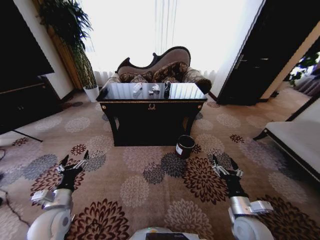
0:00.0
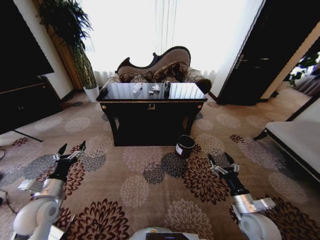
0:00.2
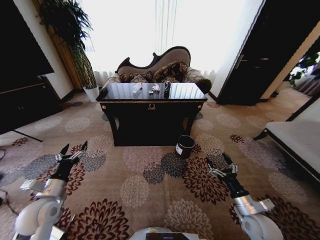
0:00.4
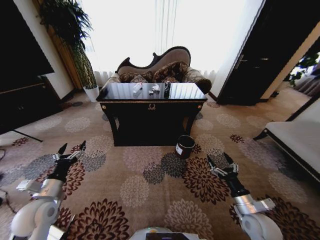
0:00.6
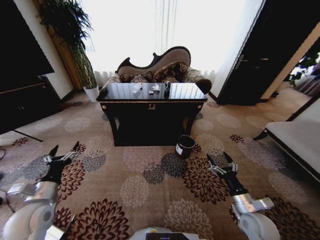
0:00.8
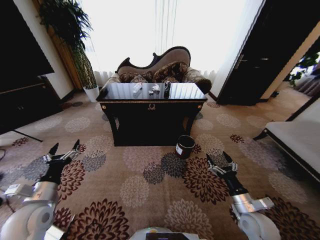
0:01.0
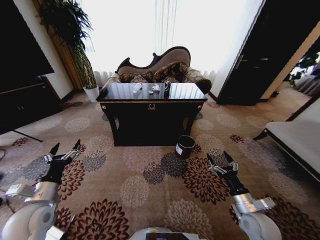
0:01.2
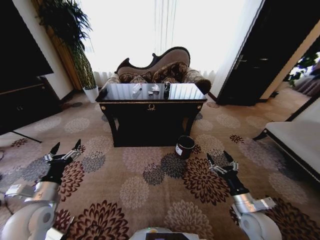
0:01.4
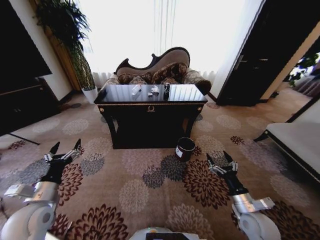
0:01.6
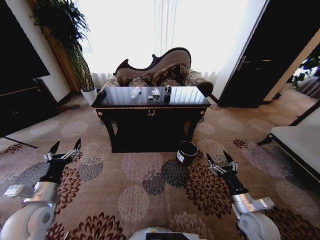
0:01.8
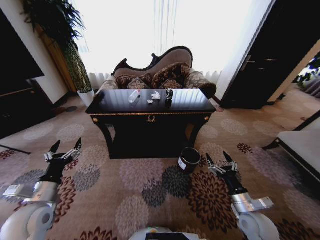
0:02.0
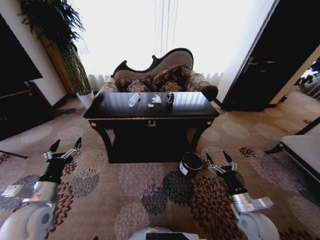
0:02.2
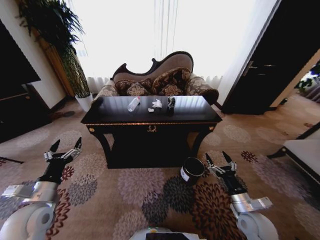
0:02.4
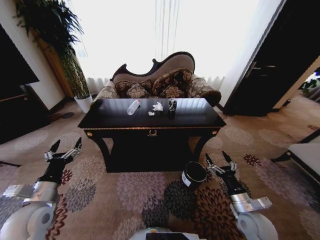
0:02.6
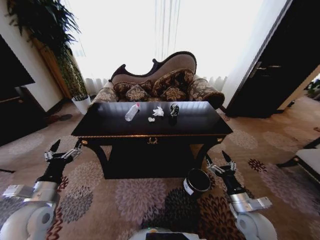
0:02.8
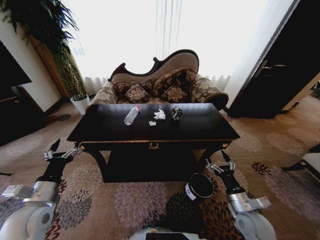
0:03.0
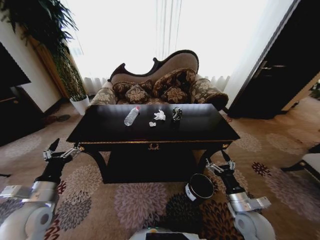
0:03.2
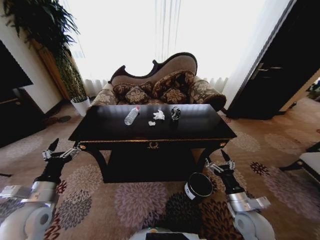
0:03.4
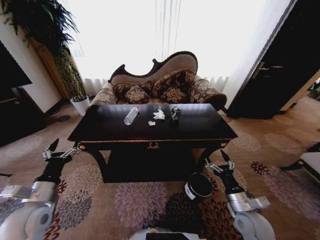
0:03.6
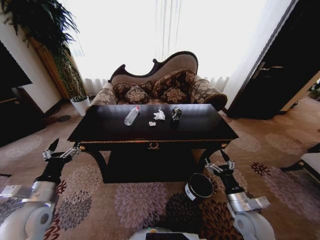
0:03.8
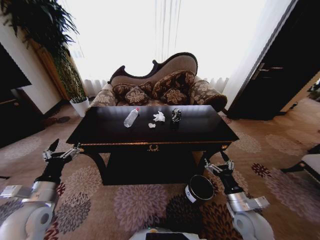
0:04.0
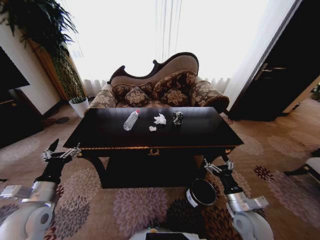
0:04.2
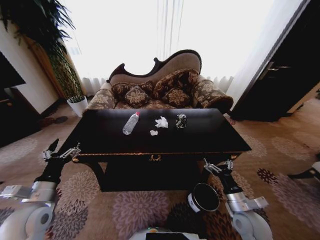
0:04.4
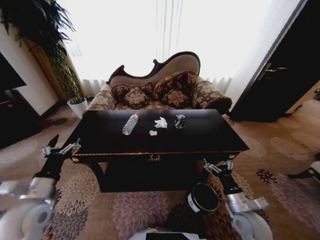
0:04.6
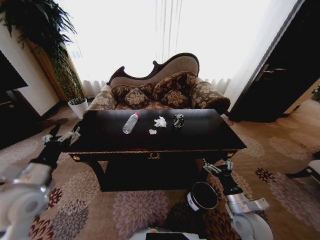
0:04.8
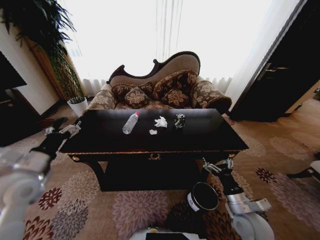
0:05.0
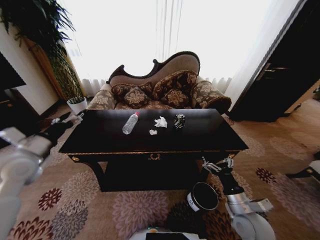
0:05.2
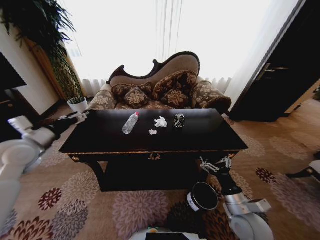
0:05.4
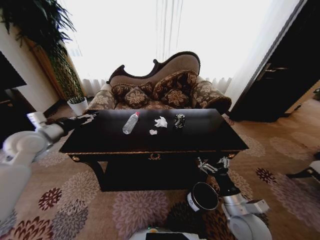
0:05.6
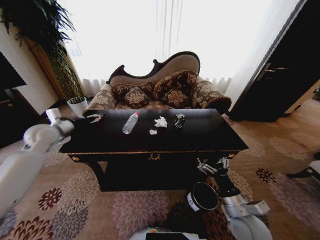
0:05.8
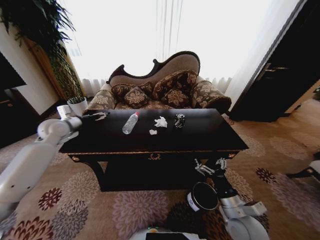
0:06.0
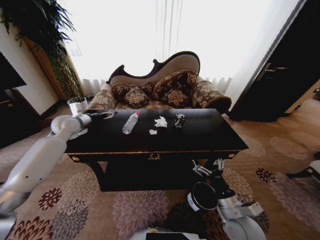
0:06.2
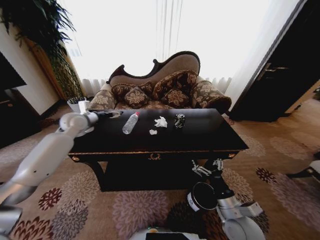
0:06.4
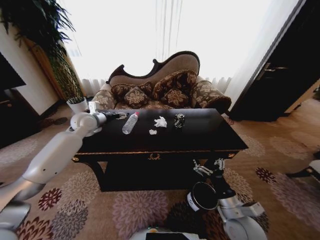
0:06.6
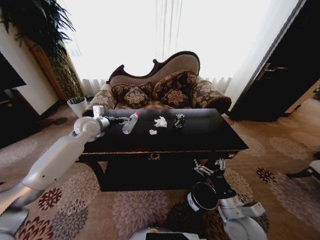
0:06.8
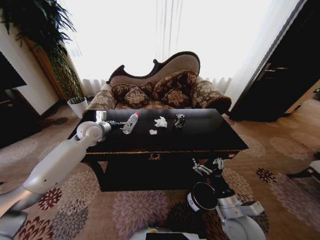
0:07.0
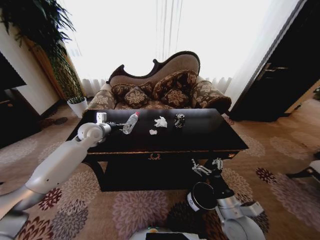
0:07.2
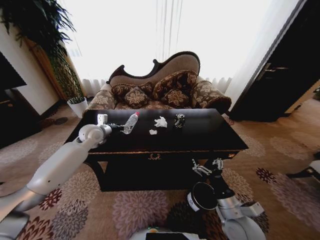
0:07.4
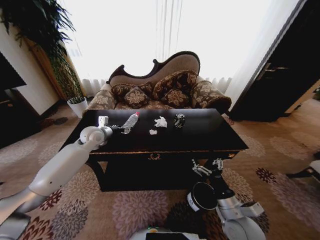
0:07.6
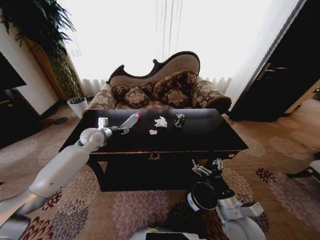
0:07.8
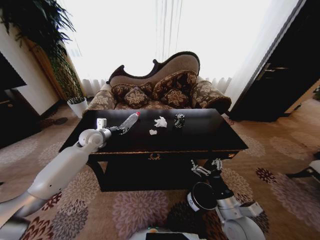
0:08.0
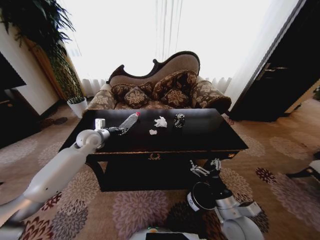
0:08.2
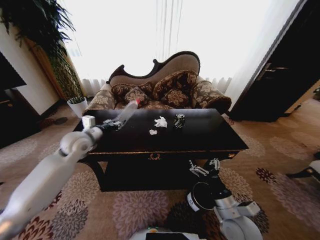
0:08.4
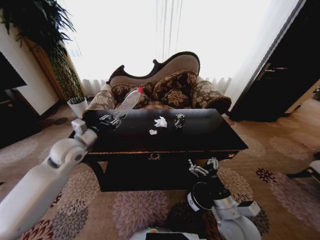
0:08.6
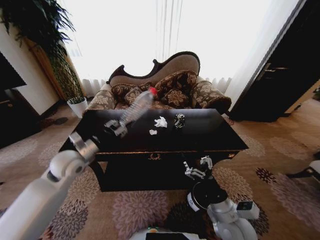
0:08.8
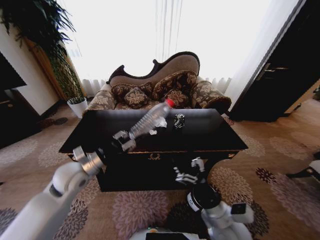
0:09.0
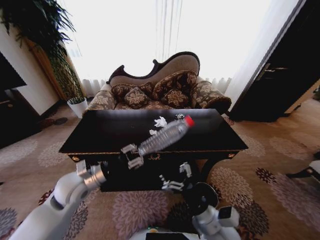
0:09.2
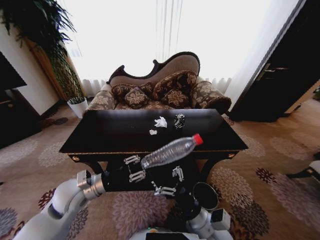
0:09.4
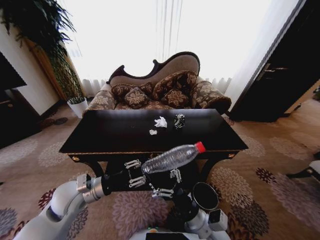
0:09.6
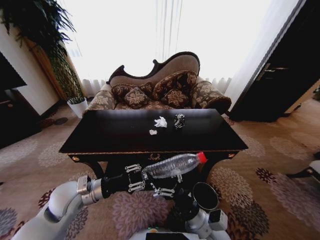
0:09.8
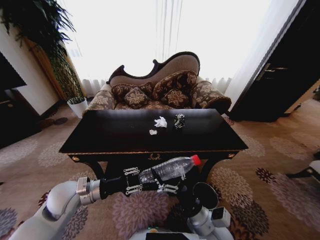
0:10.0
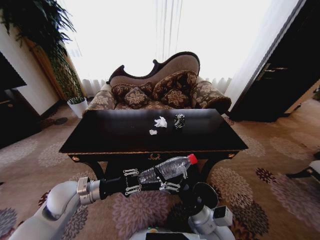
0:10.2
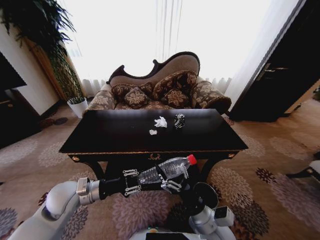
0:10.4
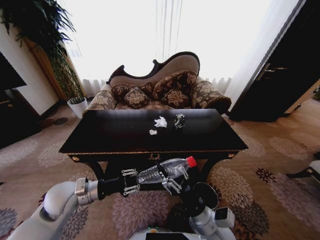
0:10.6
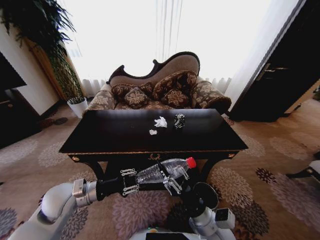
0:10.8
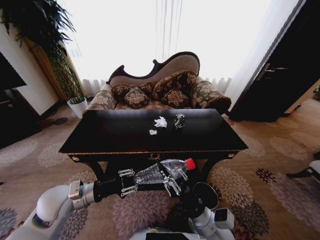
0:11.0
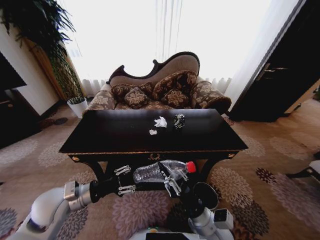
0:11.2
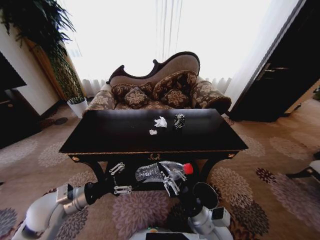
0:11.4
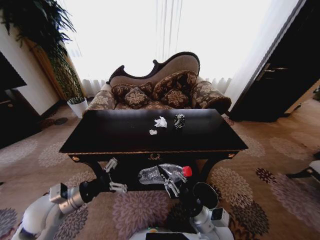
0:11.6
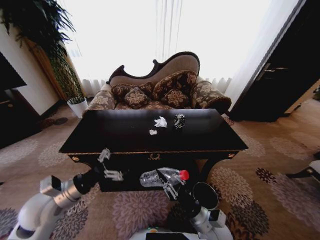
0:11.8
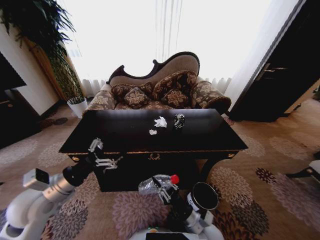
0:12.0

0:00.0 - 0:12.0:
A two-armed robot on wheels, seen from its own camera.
Task of the whole recording: Move to the front of the table and place the trash on the table into the trash bin.
0:04.4 - 0:06.0: The left gripper travels forward and upward by approximately 30 cm. The right gripper changes place by about 5 cm.
0:06.0 - 0:07.6: The left gripper travels to the right and downward by about 15 cm.
0:07.6 - 0:09.0: The left gripper travels backward by some 20 cm, and closes. The right gripper travels to the left by about 5 cm.
0:09.0 - 0:10.4: The left gripper changes place by roughly 5 cm.
0:10.4 - 0:12.0: The right gripper travels downward by about 10 cm, and closes its fingers. Meanwhile the left gripper shifts by approximately 5 cm, and opens.

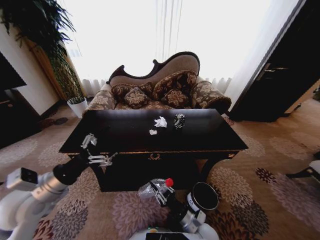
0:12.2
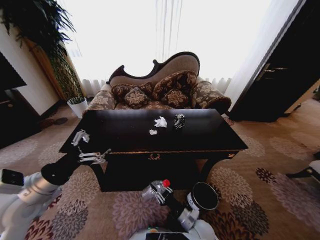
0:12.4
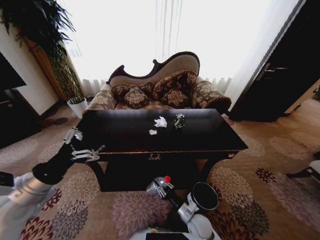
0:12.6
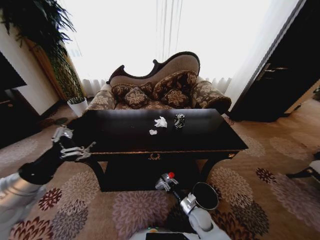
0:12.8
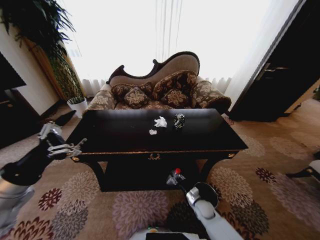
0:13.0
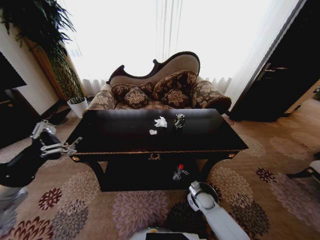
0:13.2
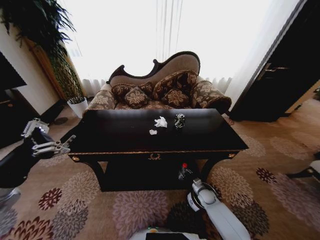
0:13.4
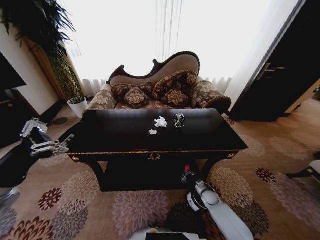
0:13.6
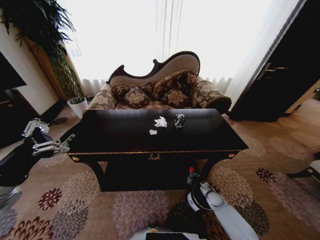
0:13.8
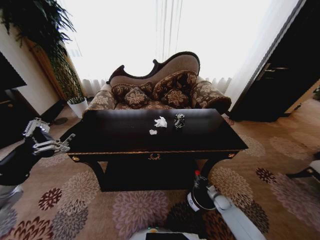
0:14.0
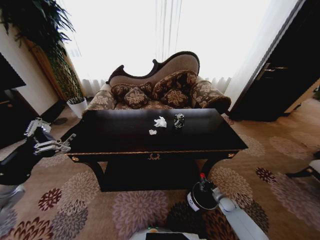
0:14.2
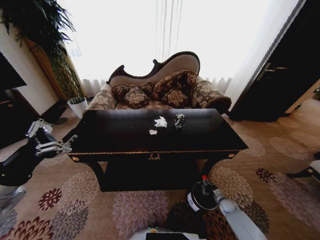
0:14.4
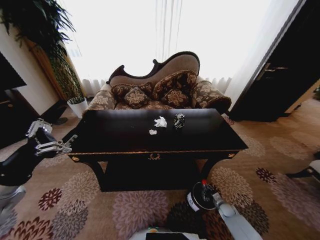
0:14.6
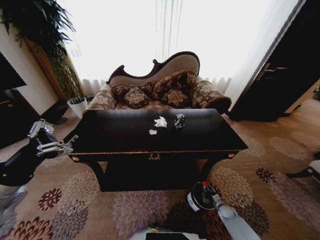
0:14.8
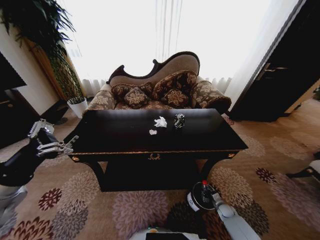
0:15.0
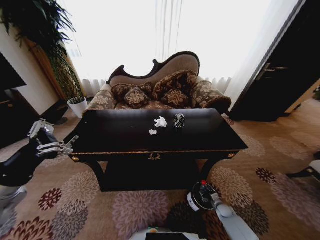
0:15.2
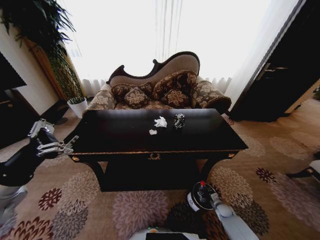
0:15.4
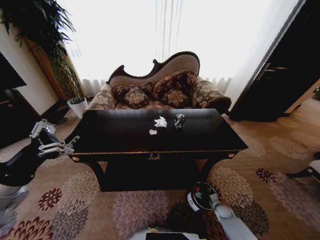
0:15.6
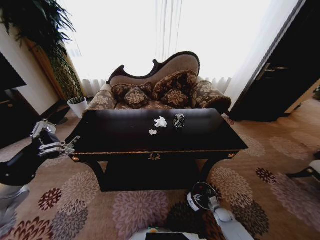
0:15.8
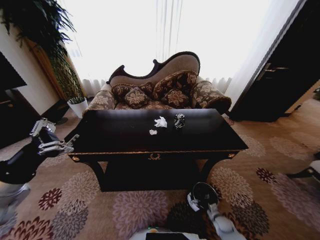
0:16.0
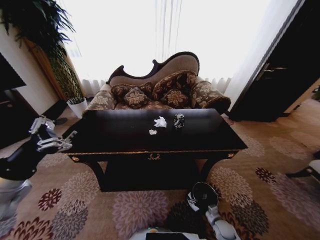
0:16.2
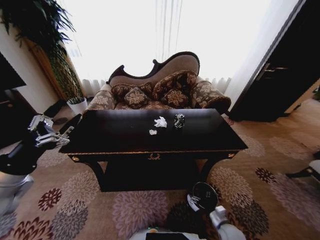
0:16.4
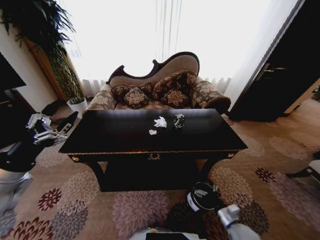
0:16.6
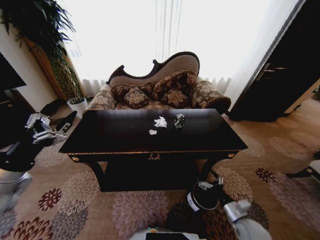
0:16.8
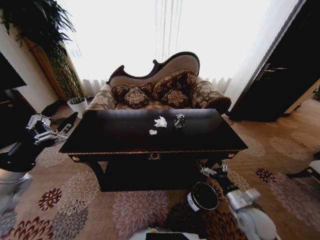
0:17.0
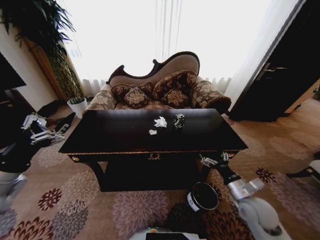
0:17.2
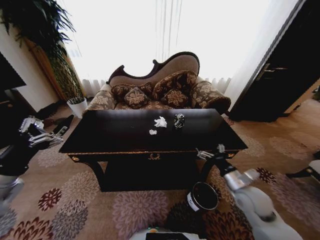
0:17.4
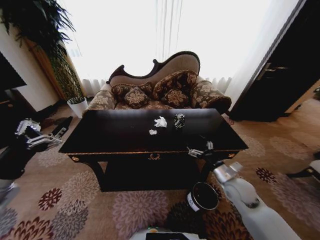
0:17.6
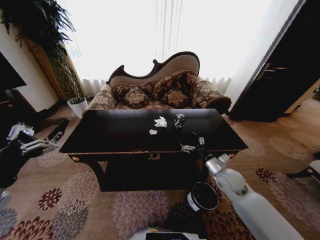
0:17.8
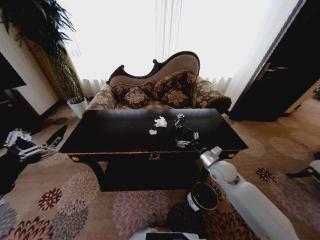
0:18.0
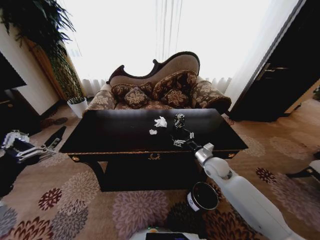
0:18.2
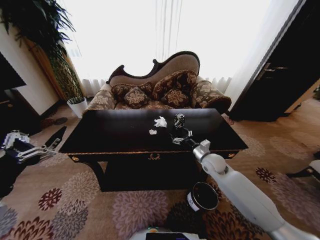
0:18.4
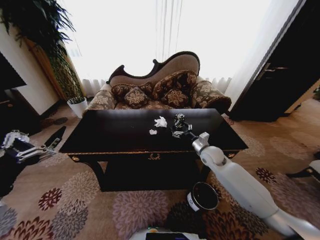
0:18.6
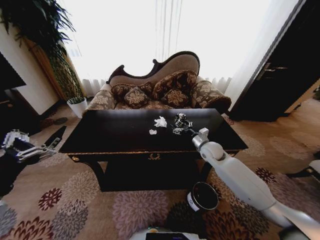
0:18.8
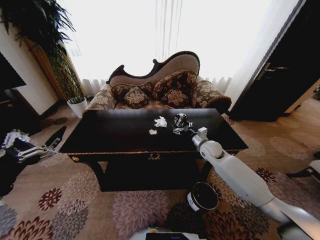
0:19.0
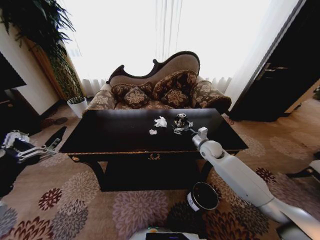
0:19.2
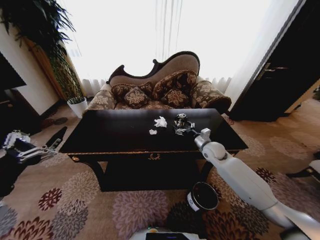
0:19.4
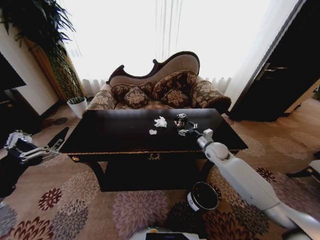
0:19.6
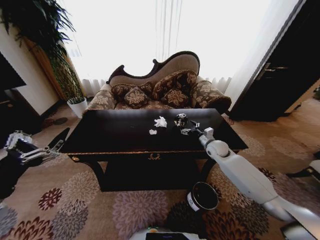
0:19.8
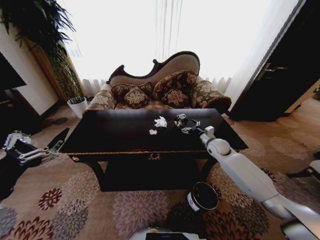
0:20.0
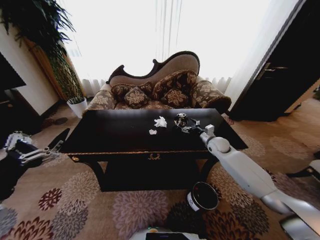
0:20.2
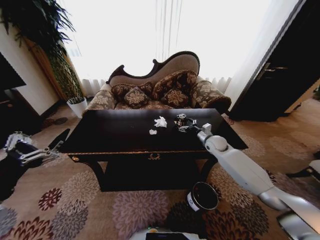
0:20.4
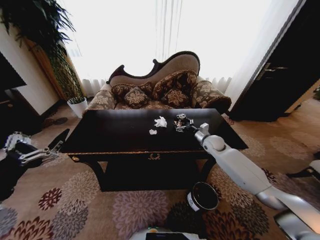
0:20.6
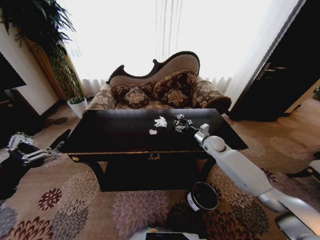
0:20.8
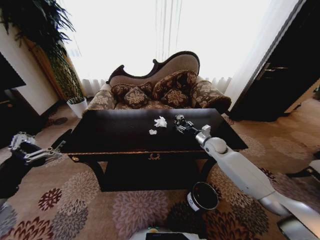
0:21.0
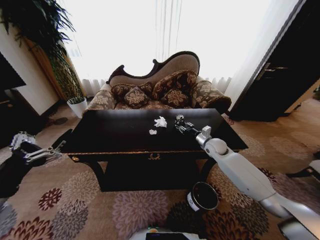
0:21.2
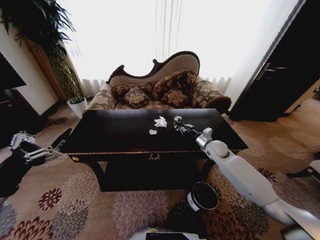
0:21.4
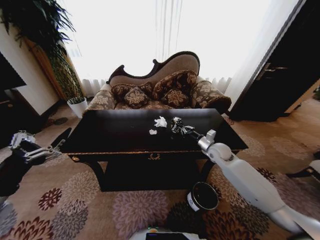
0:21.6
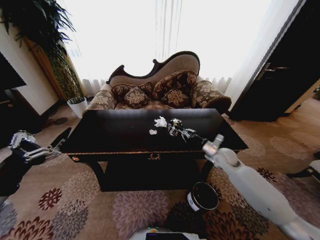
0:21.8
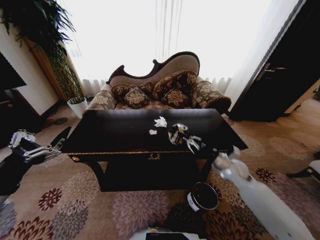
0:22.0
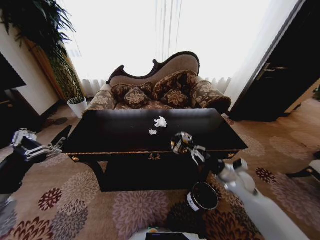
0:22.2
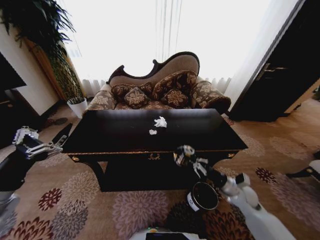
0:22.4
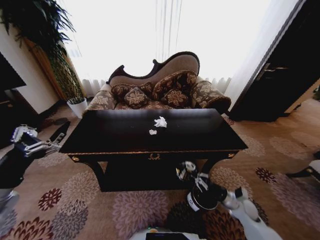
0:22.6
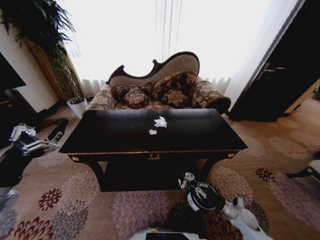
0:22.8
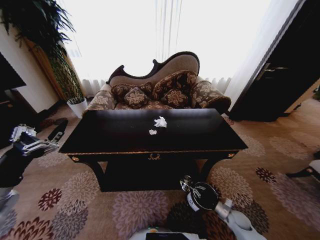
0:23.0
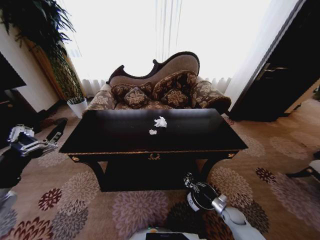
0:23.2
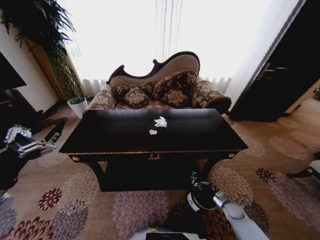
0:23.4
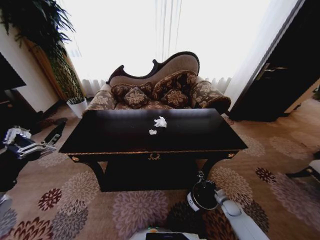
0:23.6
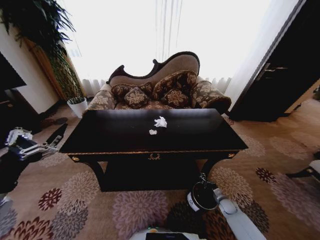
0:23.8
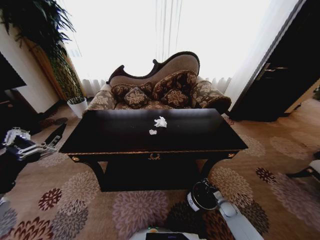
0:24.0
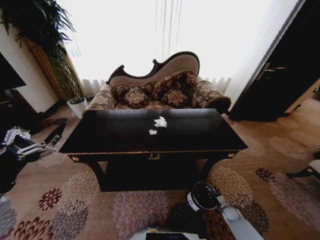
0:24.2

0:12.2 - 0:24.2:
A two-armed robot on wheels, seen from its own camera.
Task of the whole recording: Move to the front of the table and place the trash on the table into the trash bin.
0:12.2 - 0:13.8: The left gripper shifts some 5 cm upward, while the right gripper is displaced to the right, forward and downward by some 30 cm.
0:13.8 - 0:15.2: The right gripper heads to the right and backward, covering about 10 cm.
0:15.2 - 0:16.6: The right gripper heads upward, backward and to the left, covering about 25 cm, and opens its fingers.
0:16.6 - 0:18.2: The left gripper is displaced backward by approximately 5 cm. Meanwhile the right gripper heads forward and upward, covering about 25 cm.
0:18.2 - 0:19.8: The right gripper moves forward, approximately 10 cm.
0:19.8 - 0:21.2: The right gripper closes up.
0:21.2 - 0:22.6: The right gripper travels backward and downward by about 30 cm, and closes up.
0:22.6 - 0:24.2: The right gripper moves downward, approximately 20 cm.
